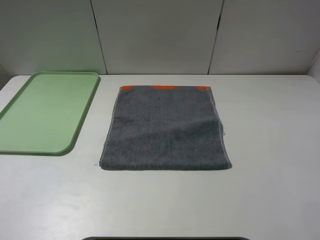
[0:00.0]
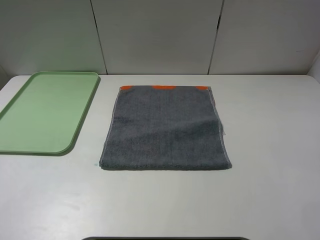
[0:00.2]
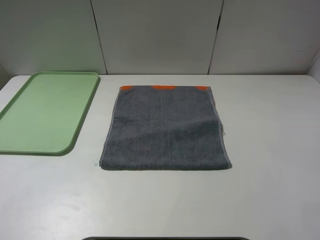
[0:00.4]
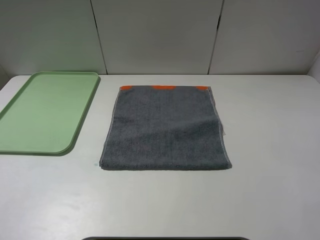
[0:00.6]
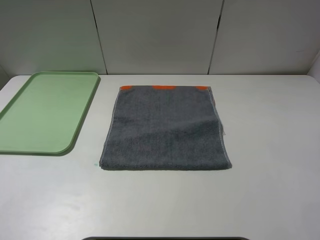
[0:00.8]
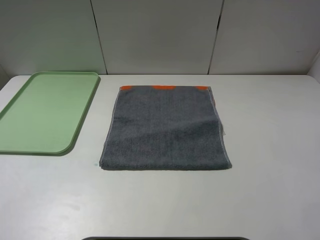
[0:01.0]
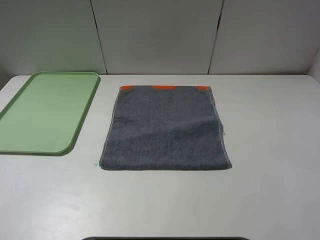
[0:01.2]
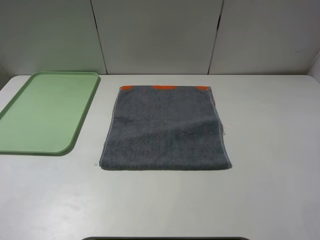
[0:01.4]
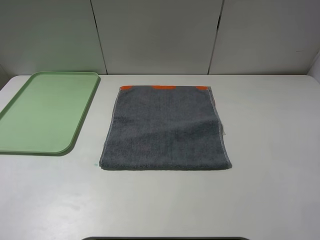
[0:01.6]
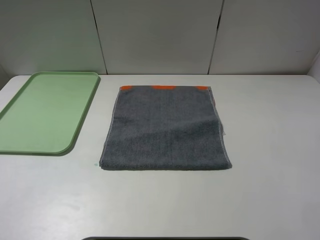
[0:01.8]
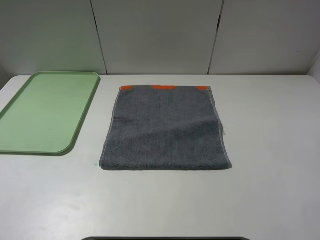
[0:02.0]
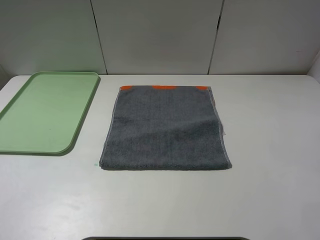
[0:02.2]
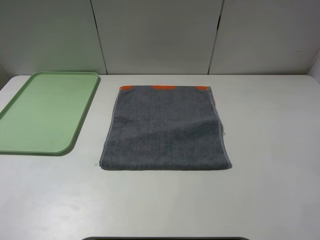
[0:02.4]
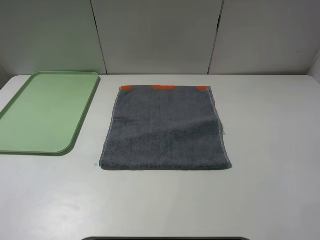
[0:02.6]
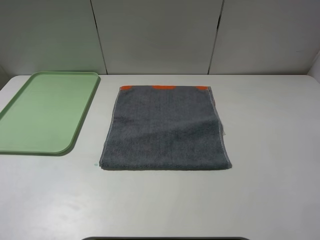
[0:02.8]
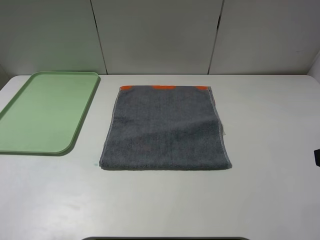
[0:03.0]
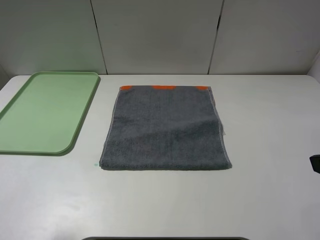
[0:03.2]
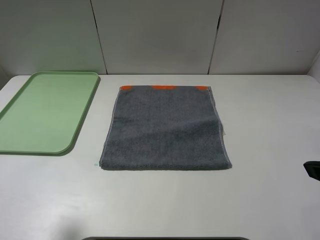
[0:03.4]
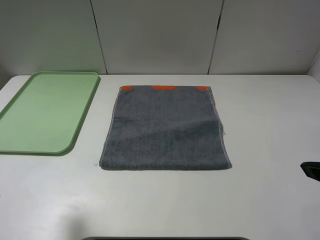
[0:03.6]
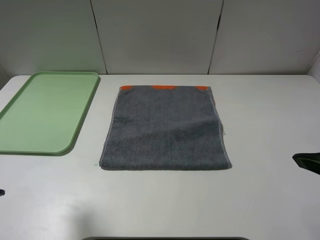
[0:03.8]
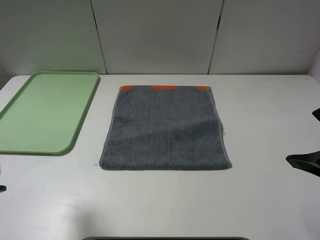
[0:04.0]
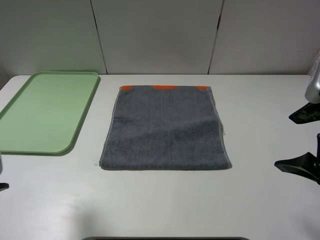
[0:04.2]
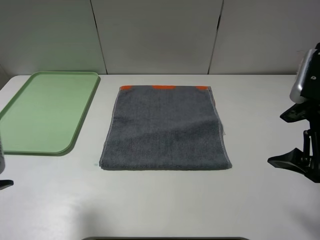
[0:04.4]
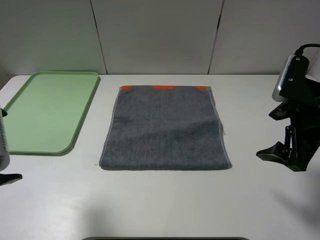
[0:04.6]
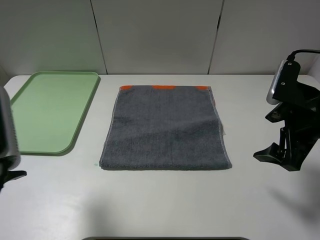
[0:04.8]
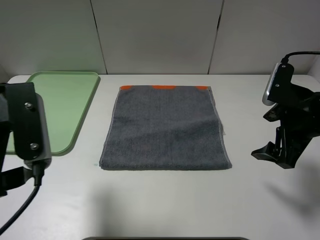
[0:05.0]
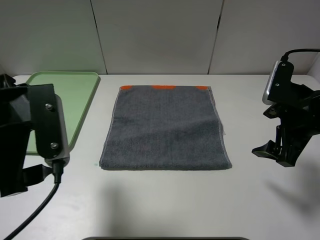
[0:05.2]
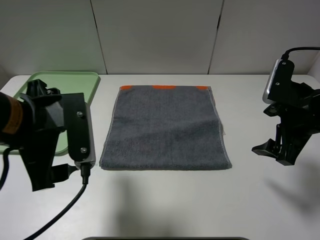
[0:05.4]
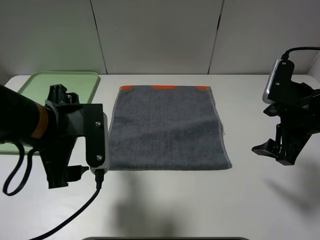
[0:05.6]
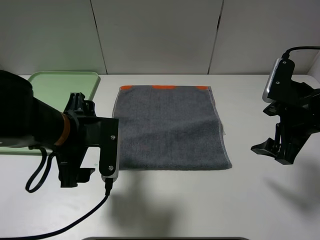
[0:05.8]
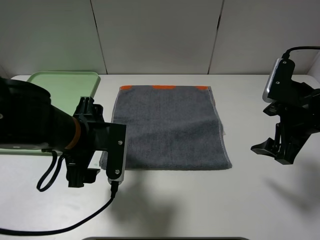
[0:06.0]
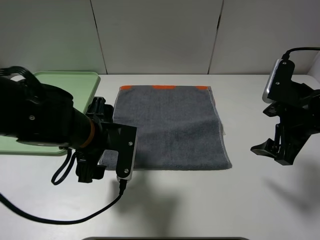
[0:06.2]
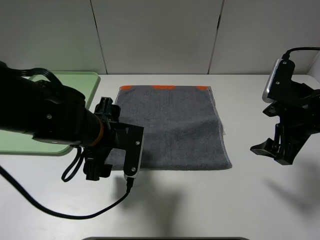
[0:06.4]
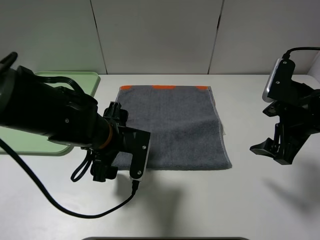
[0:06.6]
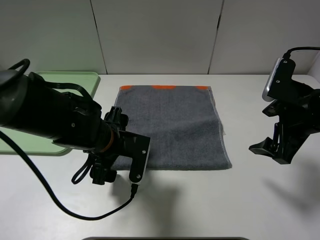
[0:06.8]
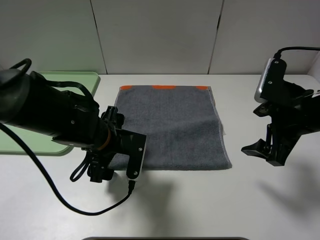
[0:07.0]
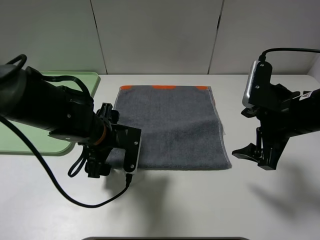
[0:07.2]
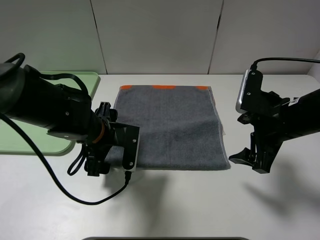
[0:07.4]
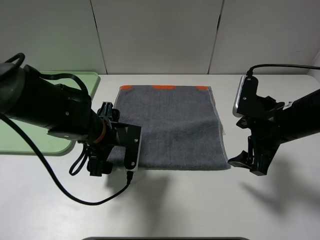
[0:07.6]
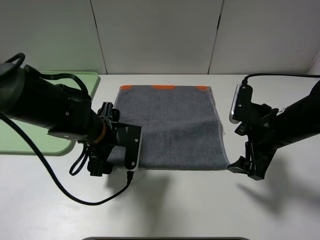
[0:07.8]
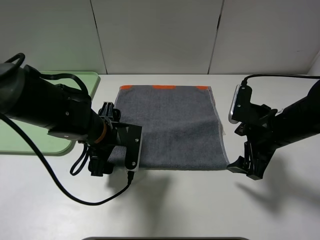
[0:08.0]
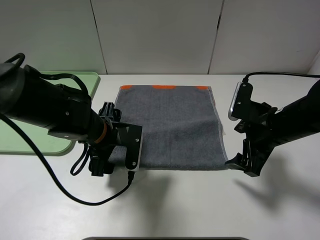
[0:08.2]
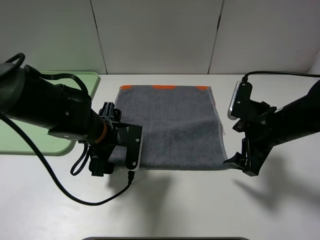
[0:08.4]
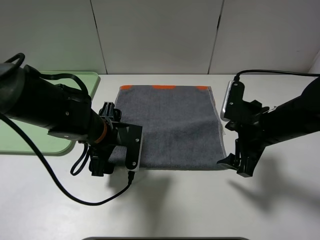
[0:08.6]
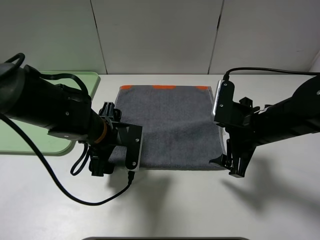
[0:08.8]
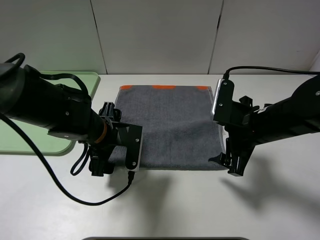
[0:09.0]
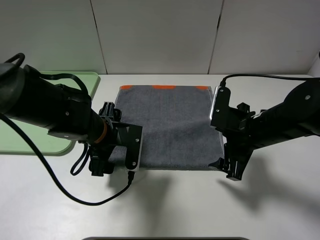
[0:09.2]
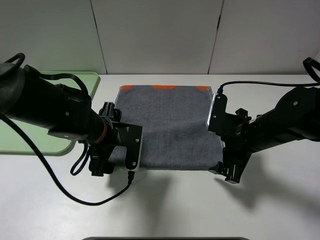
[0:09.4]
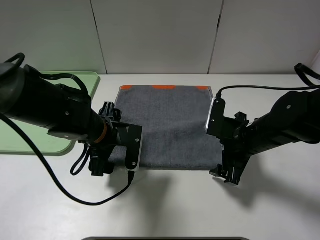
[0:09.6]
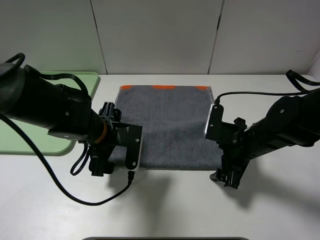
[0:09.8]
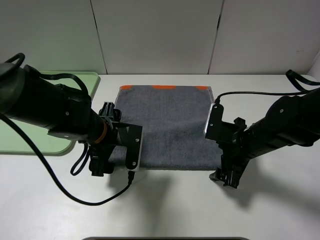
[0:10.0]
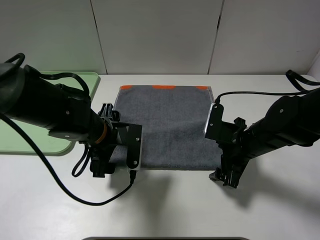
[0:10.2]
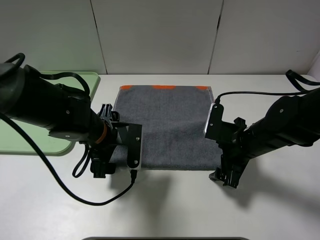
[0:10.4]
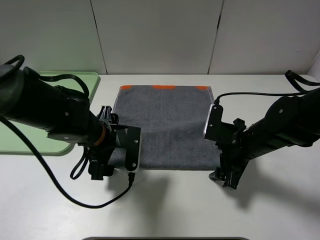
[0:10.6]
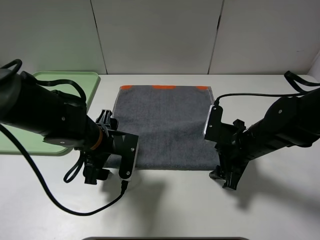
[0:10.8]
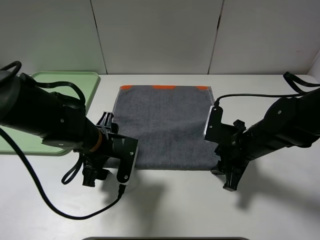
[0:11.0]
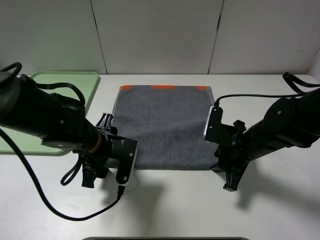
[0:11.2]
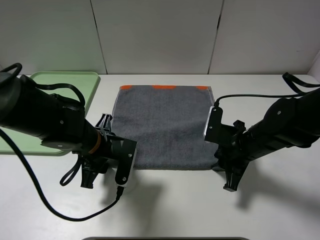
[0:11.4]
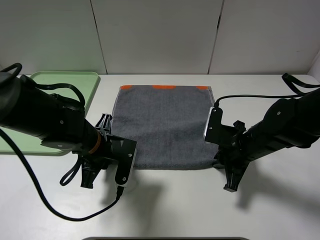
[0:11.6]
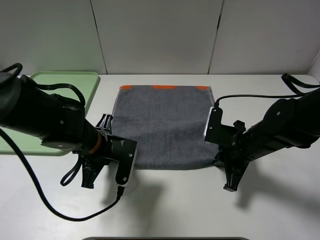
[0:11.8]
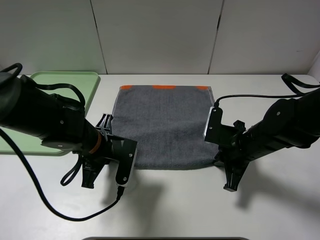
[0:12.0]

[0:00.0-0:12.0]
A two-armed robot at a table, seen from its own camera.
0:00.0 to 0:01.6: The two grippers keep their place.
0:03.0 to 0:04.4: The left gripper heads to the right, covering about 5 cm; the right gripper shifts roughly 10 cm forward and downward.
0:04.4 to 0:06.0: The right gripper shifts by some 5 cm. The left gripper travels downward, to the right and forward by roughly 20 cm.
0:06.0 to 0:07.6: The left gripper ends up about 5 cm from where it was. Meanwhile the right gripper ends up approximately 5 cm from where it was.
0:07.6 to 0:09.0: The grippers make only small movements.
0:09.0 to 0:10.4: The right gripper travels downward by roughly 5 cm.
0:10.4 to 0:12.0: The left gripper closes its fingers. Meanwhile the right gripper closes.

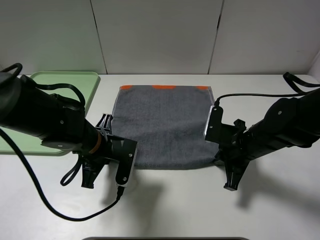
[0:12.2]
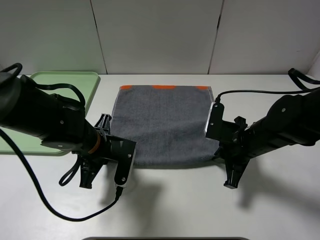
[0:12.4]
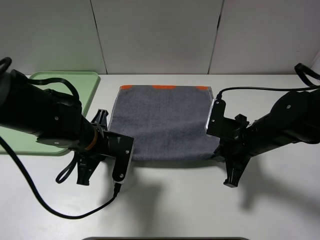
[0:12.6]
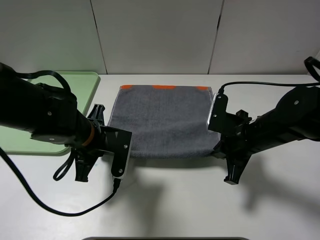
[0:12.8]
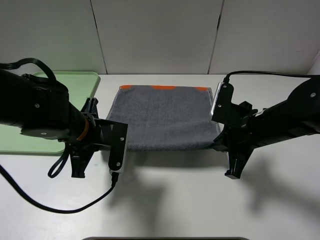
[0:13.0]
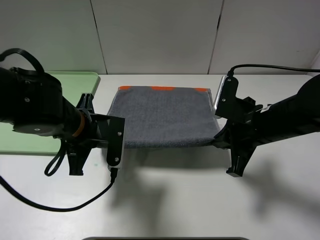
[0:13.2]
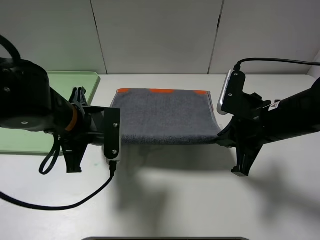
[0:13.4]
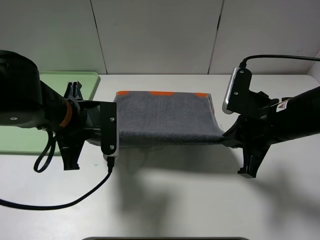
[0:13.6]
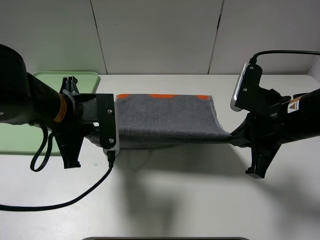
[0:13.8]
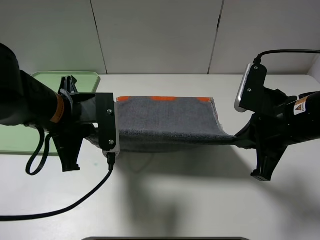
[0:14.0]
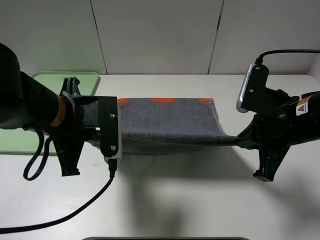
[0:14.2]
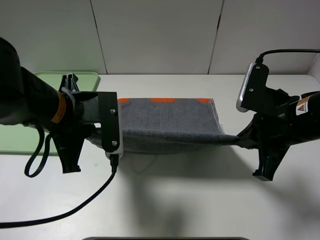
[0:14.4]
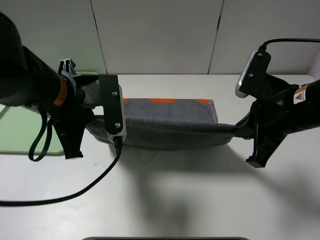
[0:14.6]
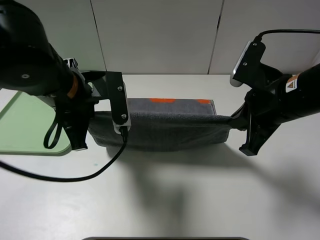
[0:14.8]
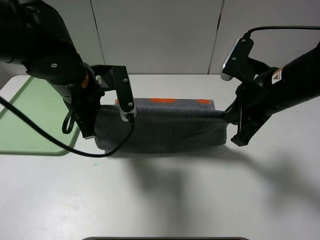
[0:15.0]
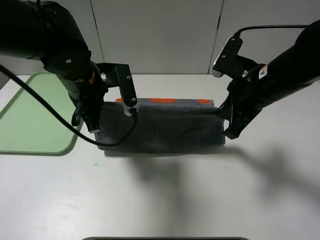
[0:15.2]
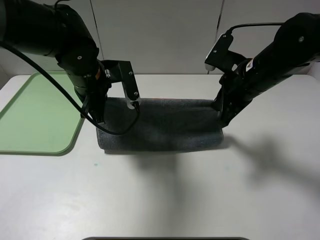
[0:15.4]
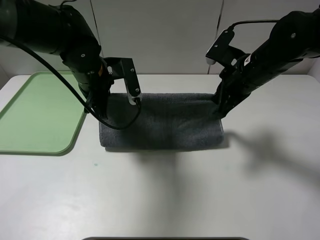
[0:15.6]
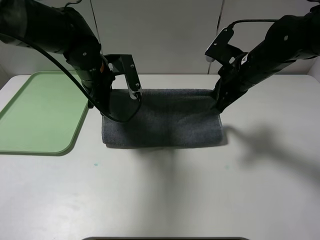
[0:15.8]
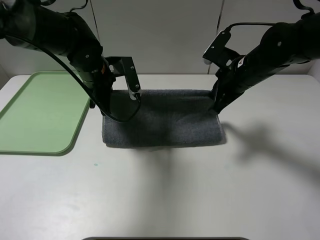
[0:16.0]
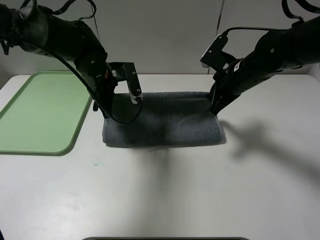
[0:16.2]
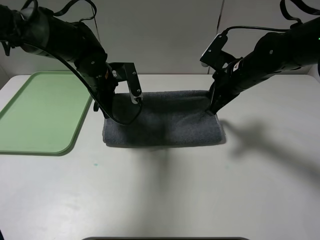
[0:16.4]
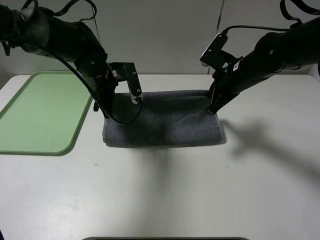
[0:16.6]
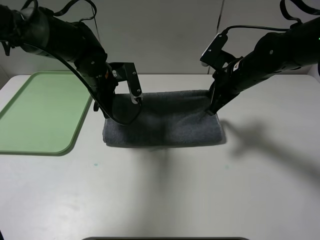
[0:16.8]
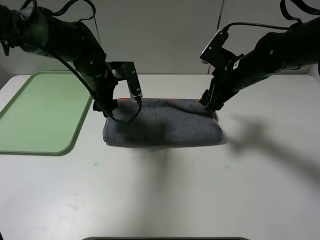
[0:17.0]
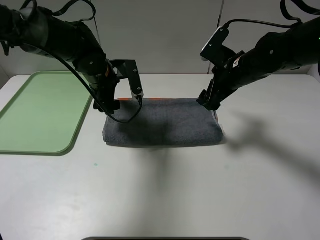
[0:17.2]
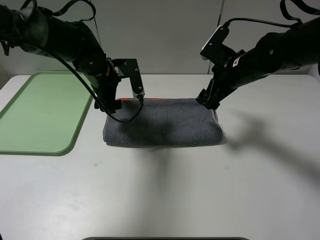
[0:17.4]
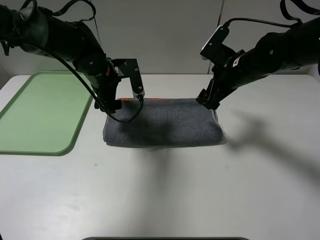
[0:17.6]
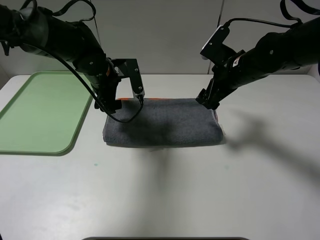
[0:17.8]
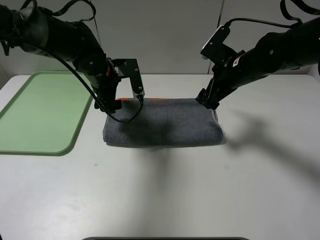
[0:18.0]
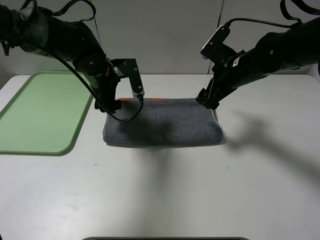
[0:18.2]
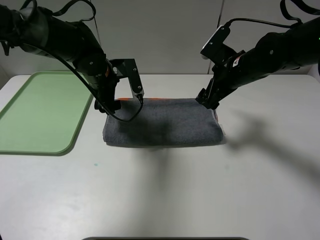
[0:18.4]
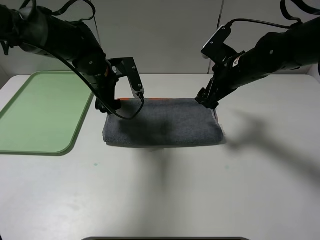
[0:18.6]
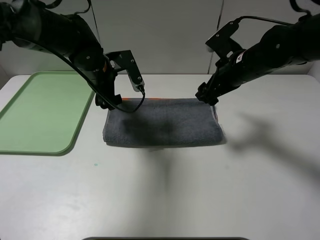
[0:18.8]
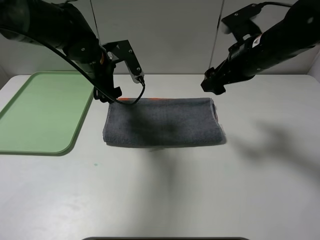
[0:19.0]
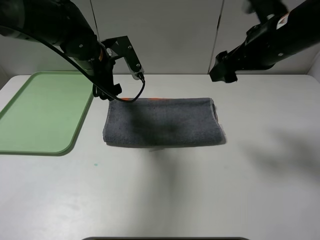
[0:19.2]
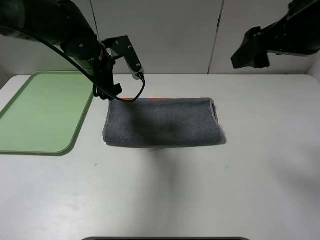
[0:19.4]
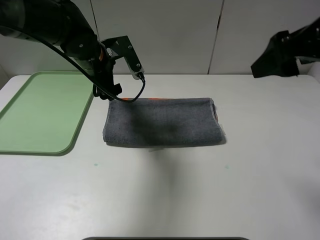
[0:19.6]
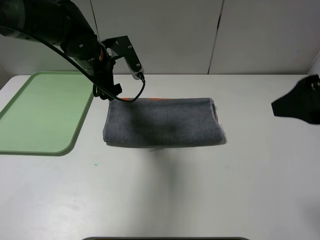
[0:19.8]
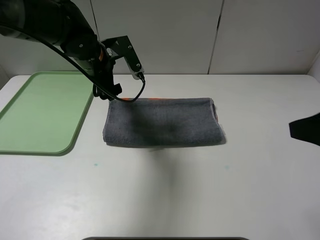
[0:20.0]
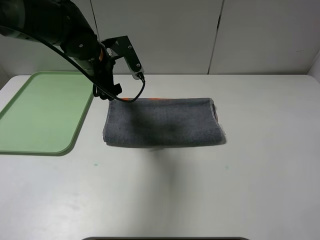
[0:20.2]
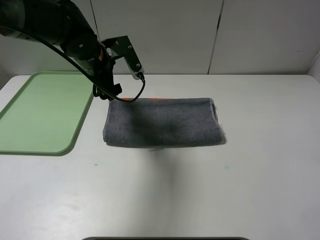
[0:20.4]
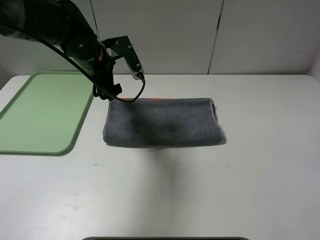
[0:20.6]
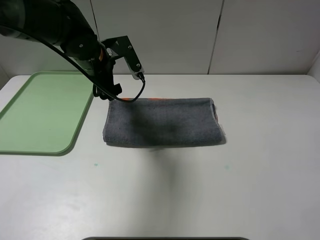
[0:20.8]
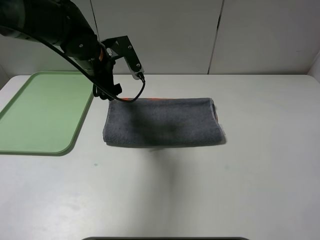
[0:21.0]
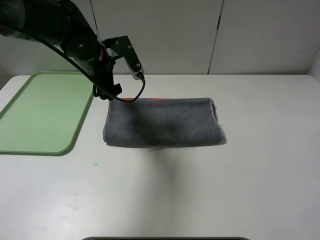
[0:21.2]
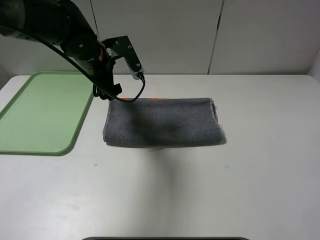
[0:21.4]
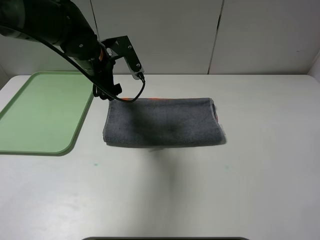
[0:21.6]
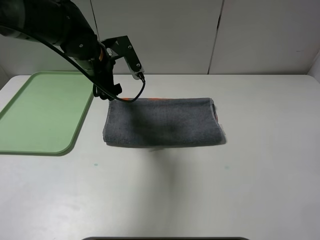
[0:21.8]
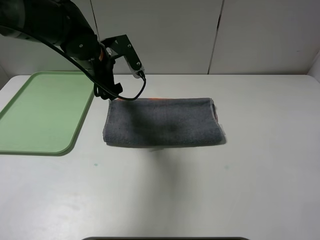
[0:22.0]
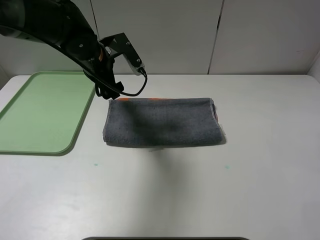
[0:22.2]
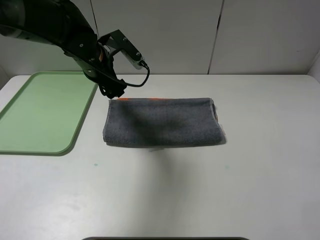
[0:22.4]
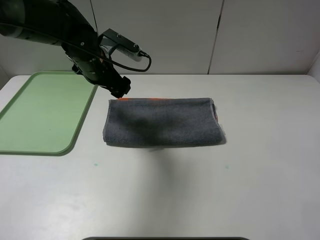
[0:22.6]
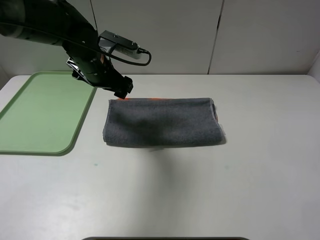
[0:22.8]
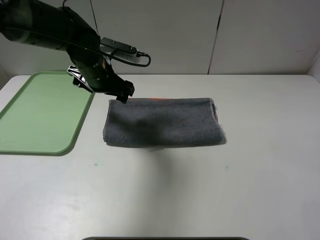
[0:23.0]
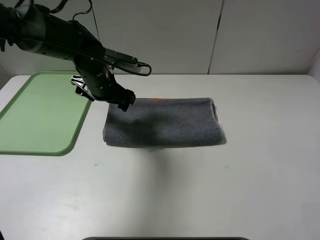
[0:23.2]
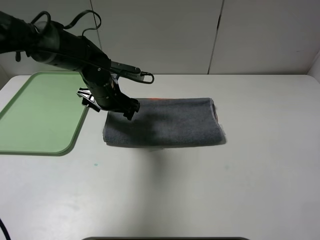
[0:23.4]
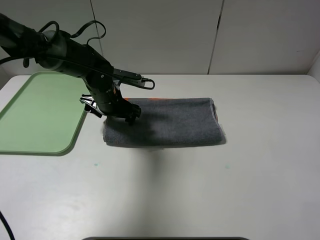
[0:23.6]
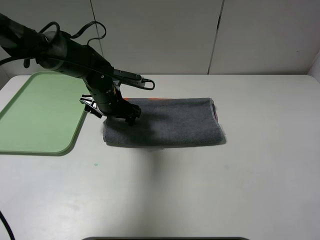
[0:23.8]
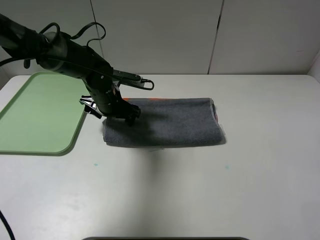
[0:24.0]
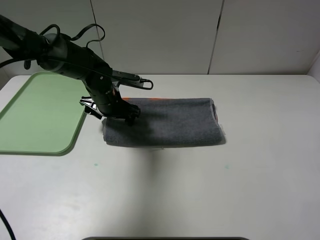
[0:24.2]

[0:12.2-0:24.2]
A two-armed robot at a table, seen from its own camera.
Step, 0:12.2 to 0:17.2: Fold the grey towel upwards.
0:12.2 to 0:13.8: Both grippers travel together upward, some 10 cm.
0:13.8 to 0:15.2: The two grippers go approximately 10 cm forward.
0:15.2 to 0:16.6: The two grippers go approximately 10 cm forward.
0:16.6 to 0:18.2: The right gripper opens up, while the left gripper opens.
0:18.2 to 0:19.8: The right gripper heads backward and upward, covering roughly 25 cm.
0:19.8 to 0:21.2: The right gripper shifts roughly 15 cm backward.
0:22.6 to 0:24.2: The left gripper goes some 10 cm downward.
